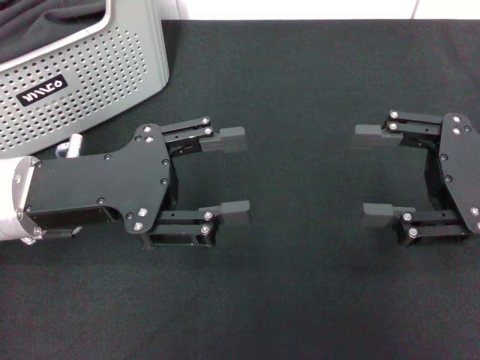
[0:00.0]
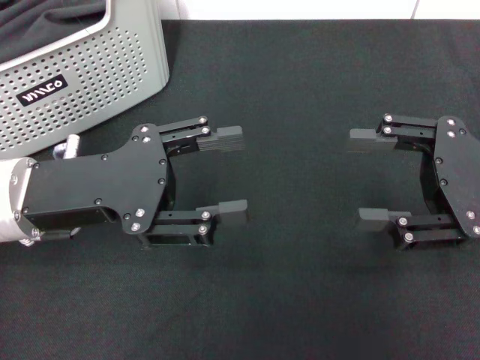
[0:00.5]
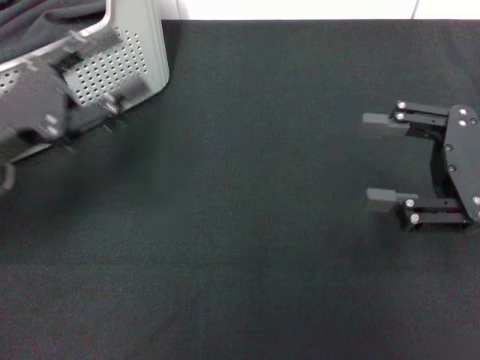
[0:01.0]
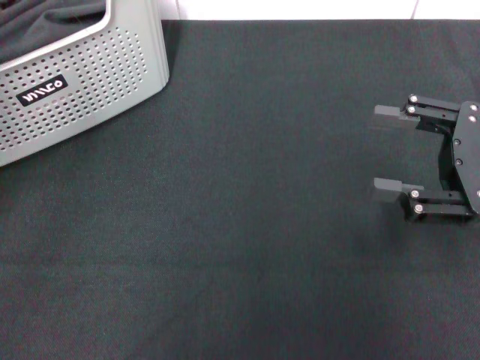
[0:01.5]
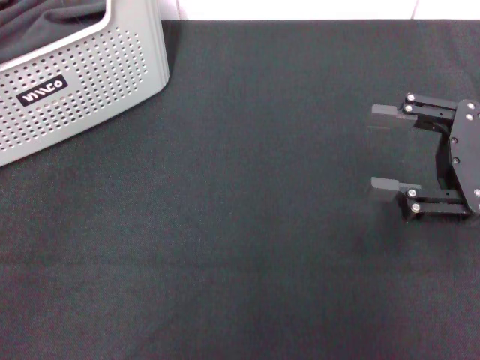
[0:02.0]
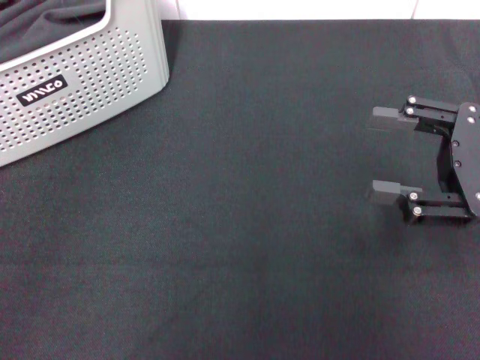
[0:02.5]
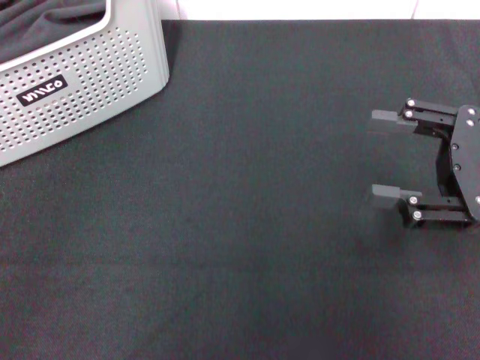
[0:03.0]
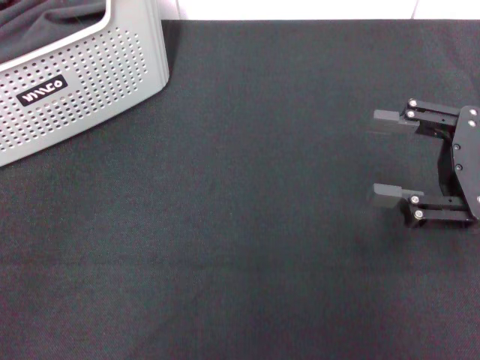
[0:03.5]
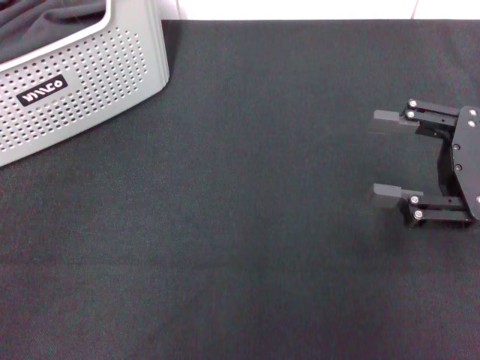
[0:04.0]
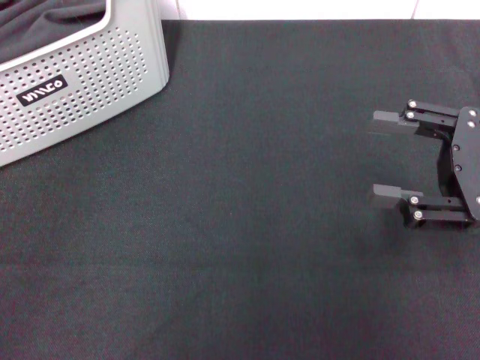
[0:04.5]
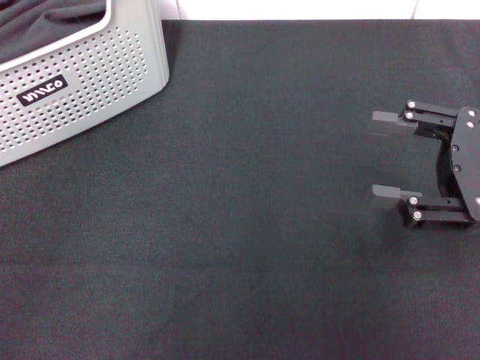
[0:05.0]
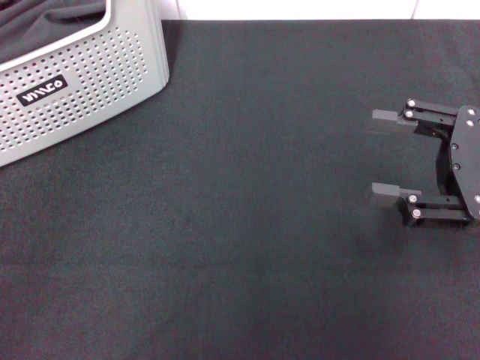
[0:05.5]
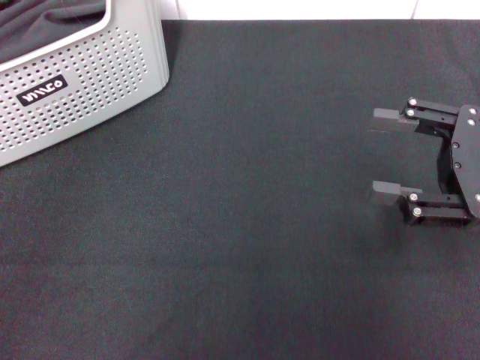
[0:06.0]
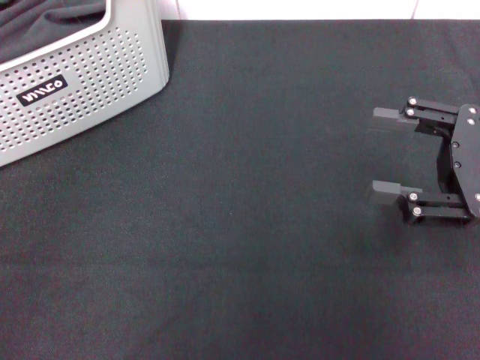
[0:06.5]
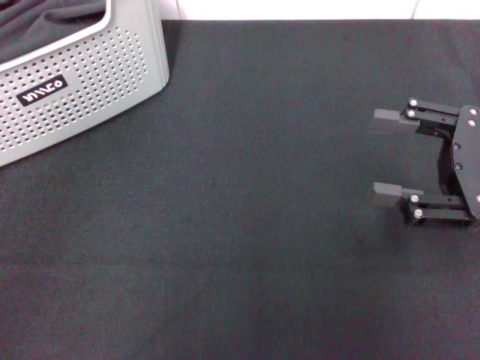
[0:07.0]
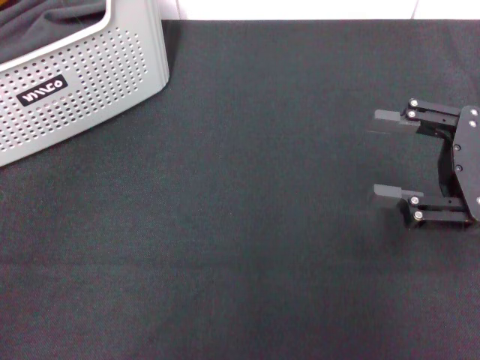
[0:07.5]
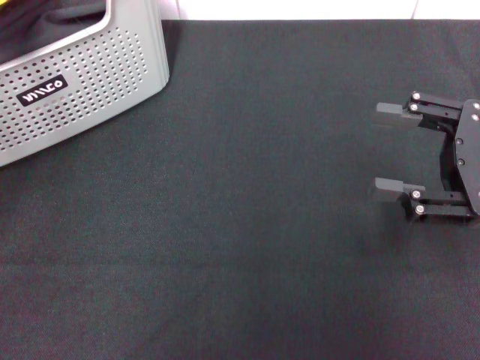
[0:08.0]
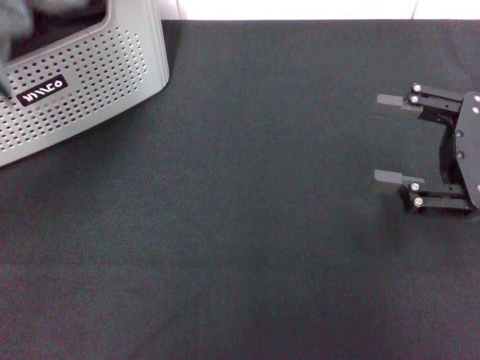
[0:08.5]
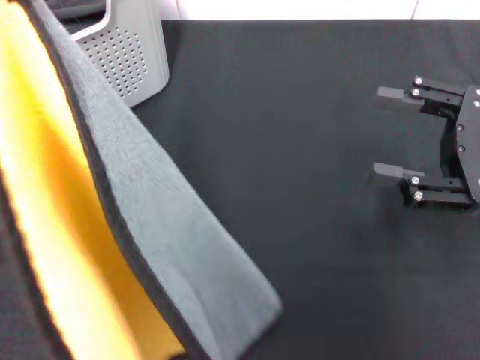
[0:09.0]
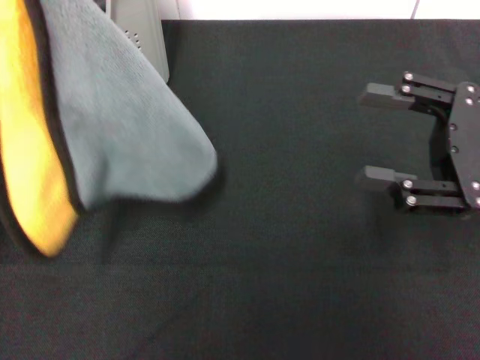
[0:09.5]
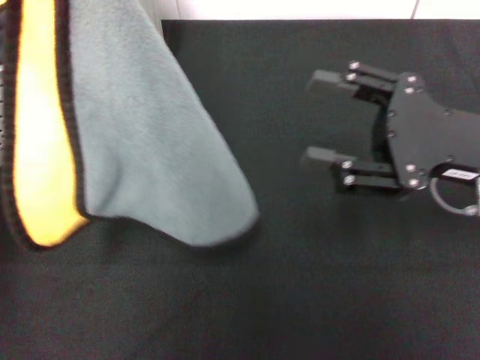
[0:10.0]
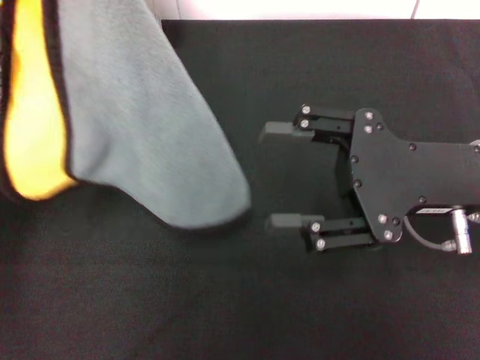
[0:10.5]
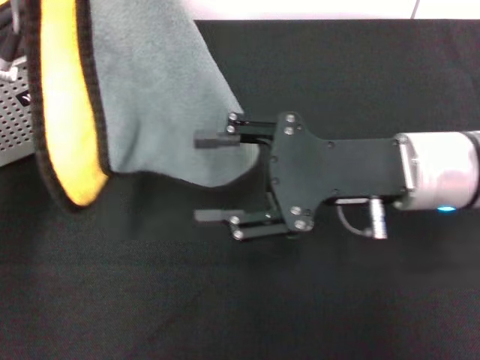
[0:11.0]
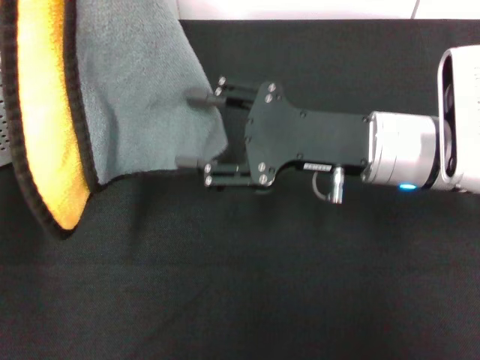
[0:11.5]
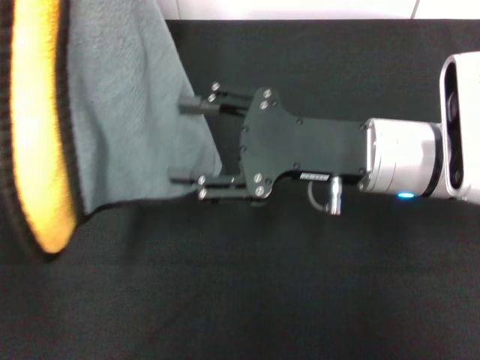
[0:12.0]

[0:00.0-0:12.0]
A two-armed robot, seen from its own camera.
Task of the whole recording: pick up the towel from the storage box and lay it flat on the black tablecloth.
Step, 0:00.0 to 0:07.0: Pick up a towel with the left gripper.
0:00.0 to 0:02.0: The left gripper heads to the left, covering some 15 cm.
0:02.0 to 0:06.0: The grippers make only small movements.
0:06.0 to 0:08.0: The left gripper is displaced upward by roughly 5 cm.
0:08.0 to 0:10.0: The right gripper shifts approximately 5 cm to the left, while the left gripper goes approximately 10 cm to the right and forward.
0:10.0 to 0:12.0: The right gripper is displaced to the left by roughly 10 cm.

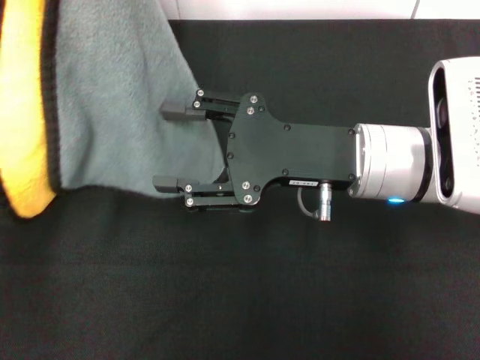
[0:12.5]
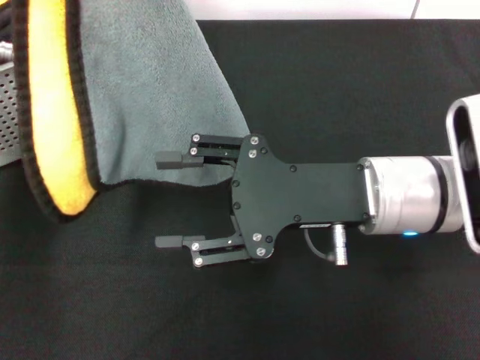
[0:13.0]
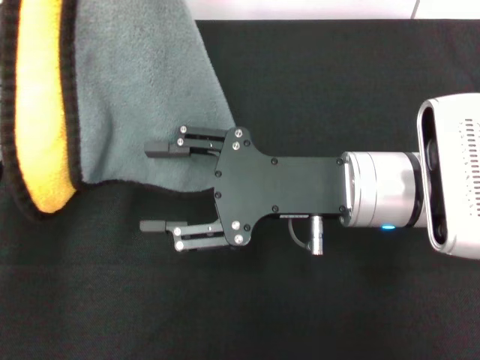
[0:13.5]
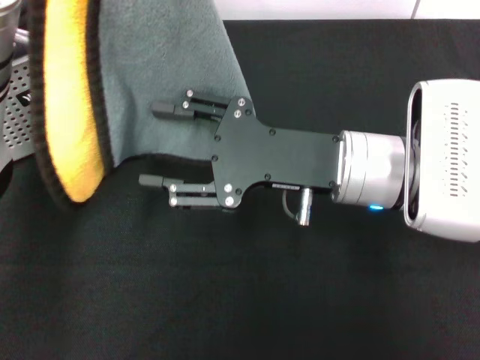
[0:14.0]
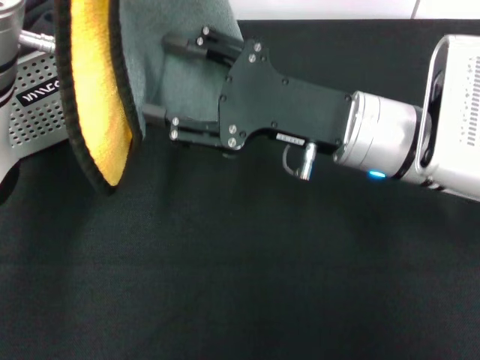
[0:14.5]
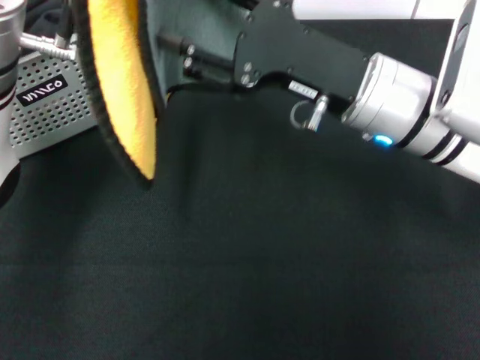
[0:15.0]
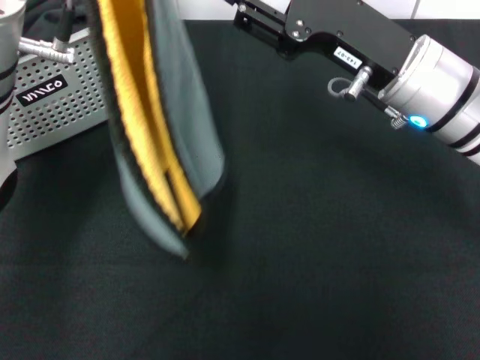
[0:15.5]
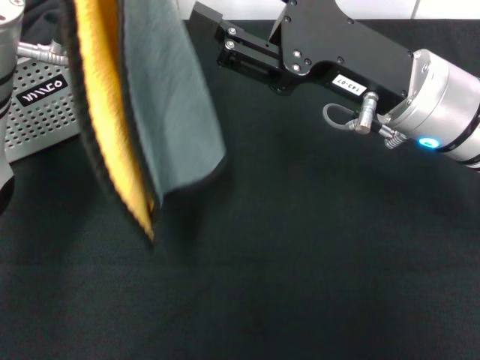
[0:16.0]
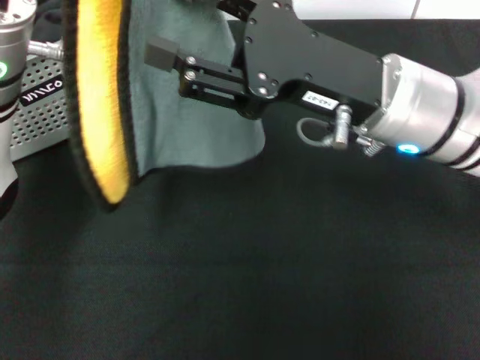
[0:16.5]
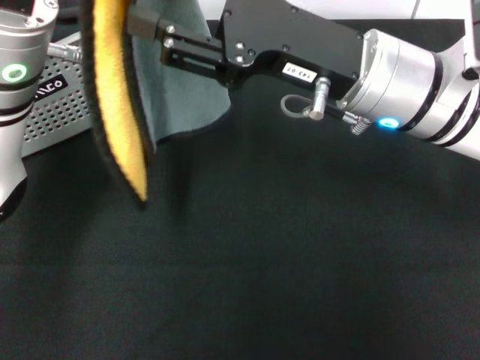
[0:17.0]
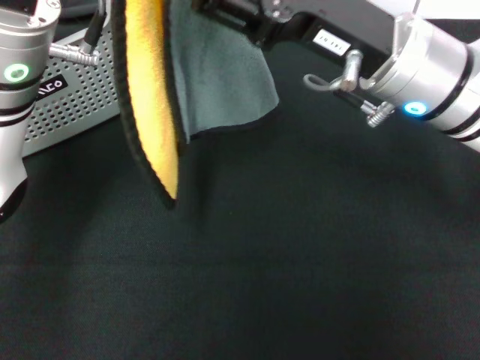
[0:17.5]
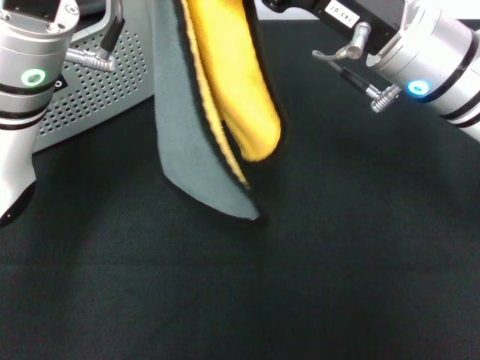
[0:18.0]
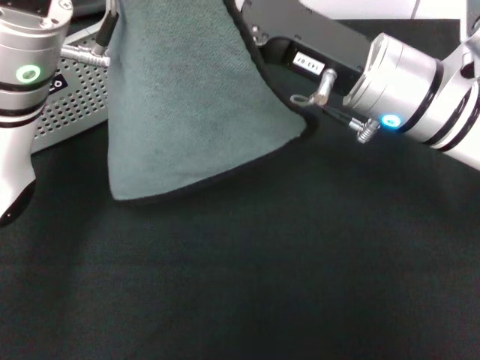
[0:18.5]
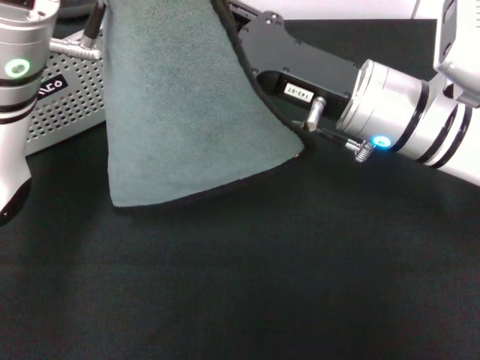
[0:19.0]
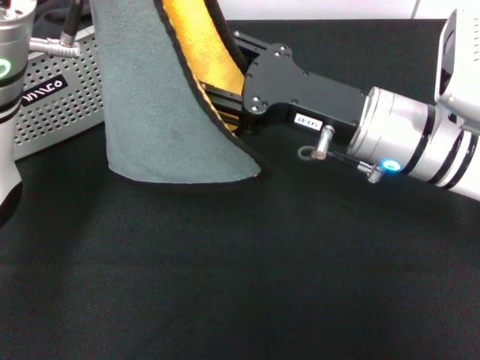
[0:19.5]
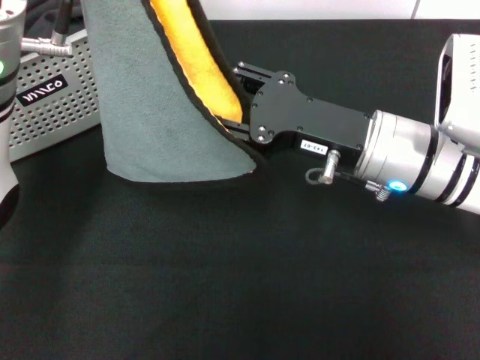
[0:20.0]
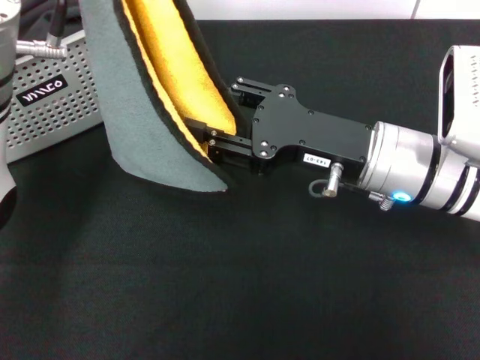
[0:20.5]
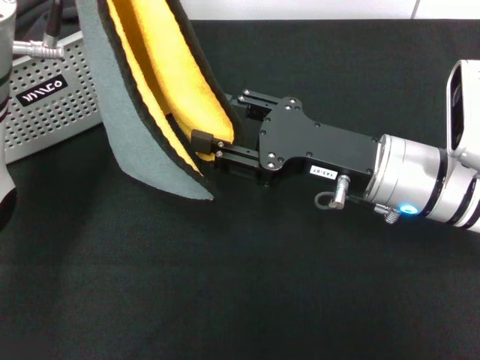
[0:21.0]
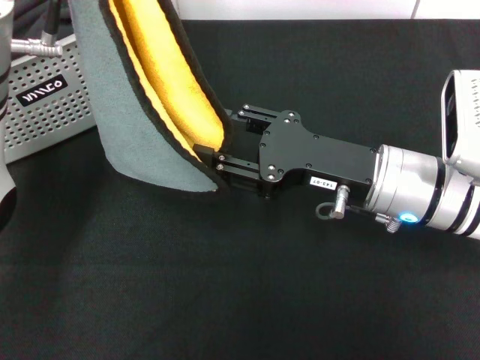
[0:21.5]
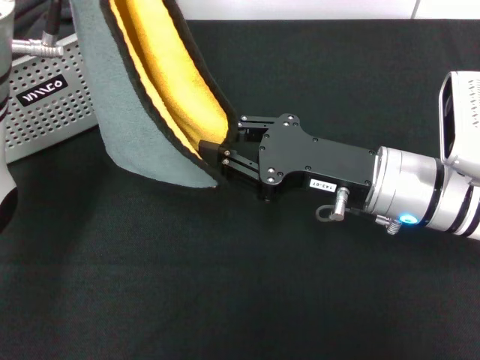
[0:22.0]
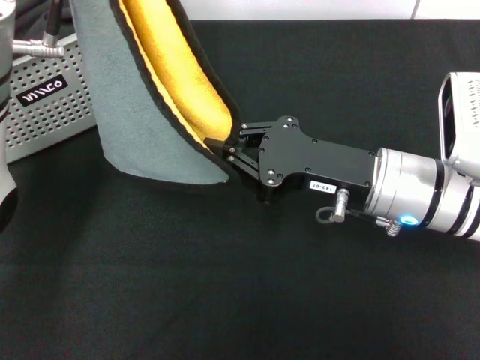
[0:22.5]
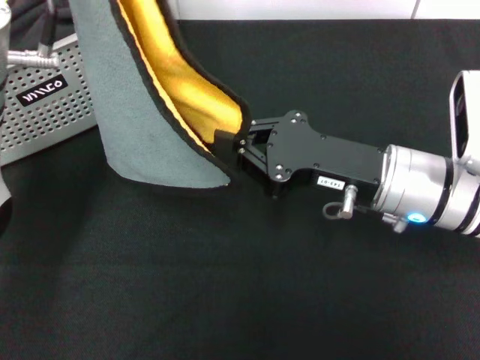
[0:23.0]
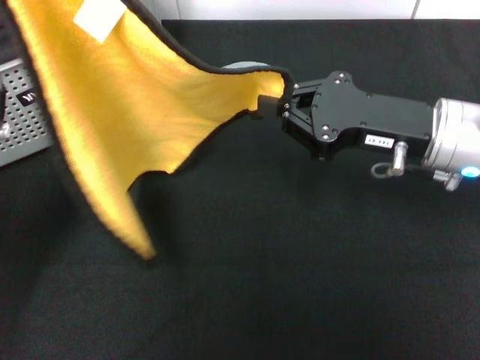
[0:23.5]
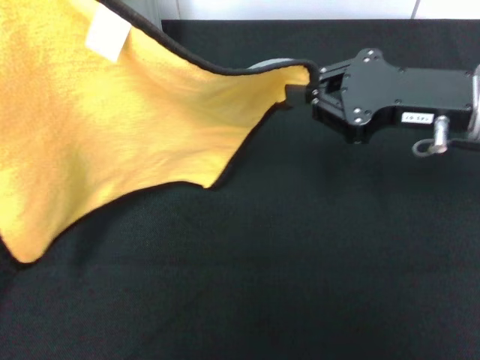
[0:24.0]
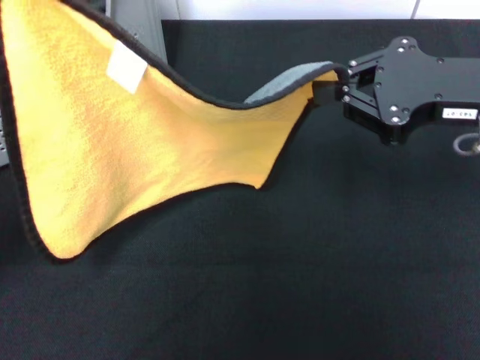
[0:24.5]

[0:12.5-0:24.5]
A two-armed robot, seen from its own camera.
Task of the whole recording: pick up the towel from the storage box and lay it flat on the black tablecloth.
Step, 0:12.5 to 0:22.5: Spread the towel flat with the left gripper.
0:18.5 to 0:20.5: The right gripper is displaced downward by approximately 5 cm.
0:20.5 to 0:22.5: The right gripper closes up.
0:22.5 to 0:24.5: The right gripper goes about 15 cm upward and to the right. Meanwhile the left gripper travels to the left and backward by approximately 10 cm.

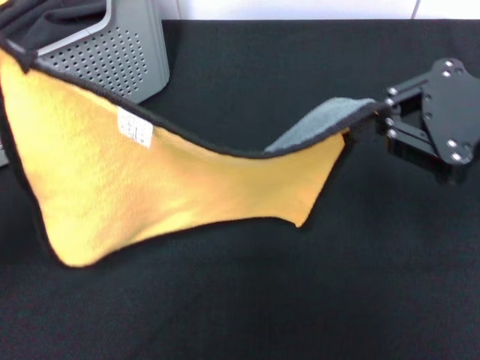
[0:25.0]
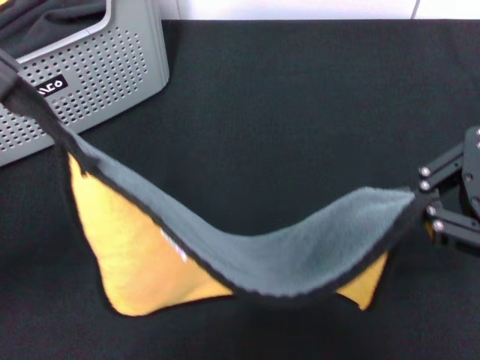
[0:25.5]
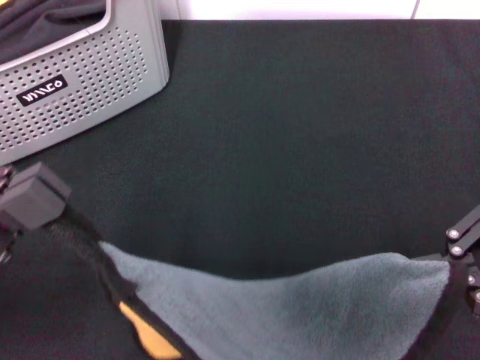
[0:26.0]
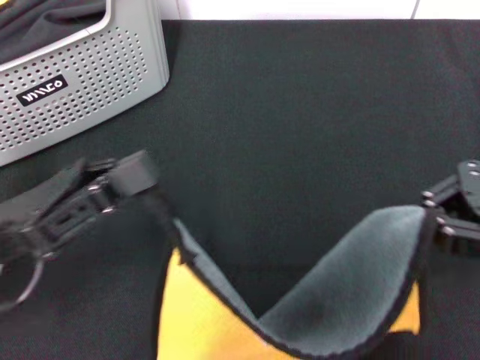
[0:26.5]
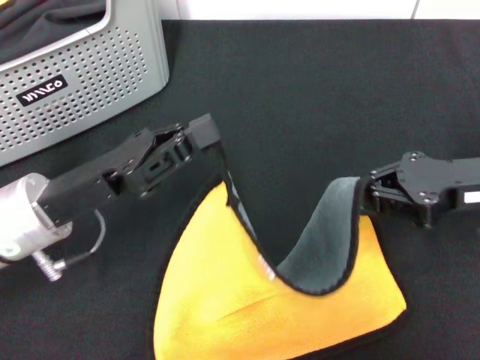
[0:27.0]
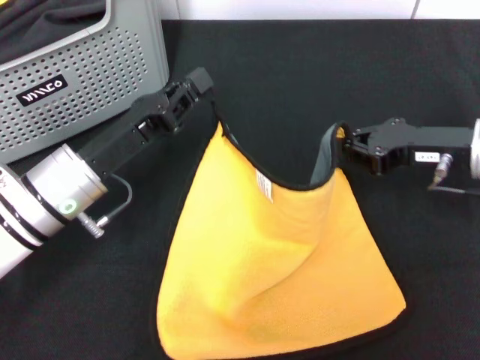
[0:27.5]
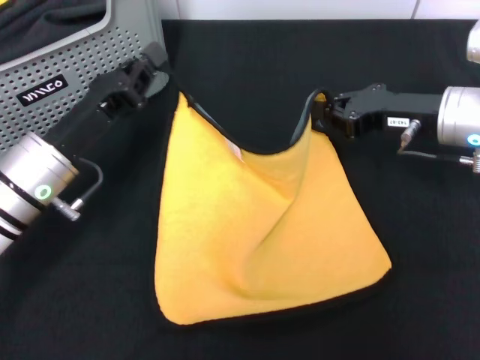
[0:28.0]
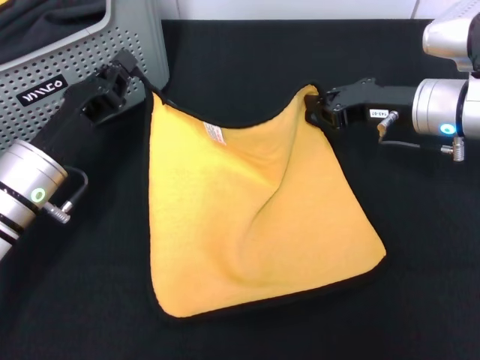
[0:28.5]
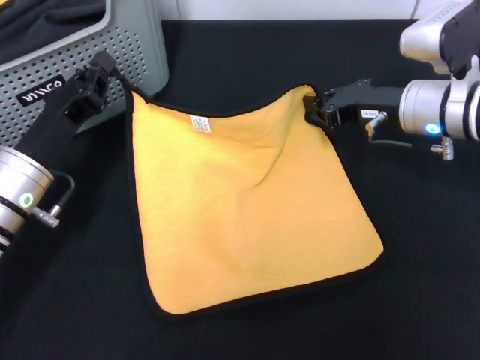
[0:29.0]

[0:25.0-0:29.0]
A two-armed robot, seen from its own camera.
Task of the whole recording: pick up the towel from the storage box and lay it flat on the black tablecloth.
0:25.0 to 0:27.0: The right gripper shifts approximately 10 cm downward; the left gripper heads downward and to the right, covering some 10 cm.
0:27.0 to 0:29.0: The left gripper shifts by about 5 cm. Meanwhile the right gripper travels forward and to the left by about 10 cm.
